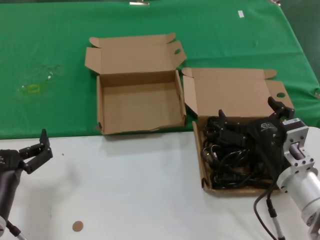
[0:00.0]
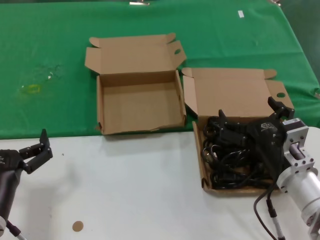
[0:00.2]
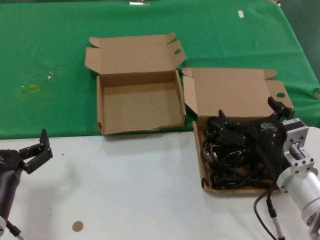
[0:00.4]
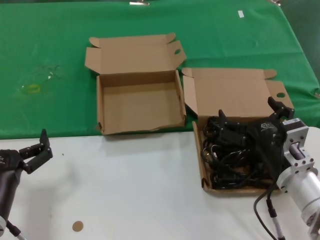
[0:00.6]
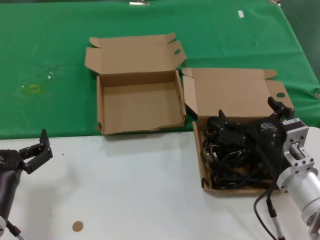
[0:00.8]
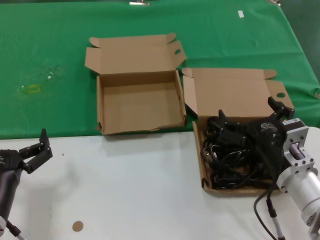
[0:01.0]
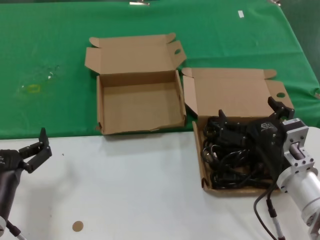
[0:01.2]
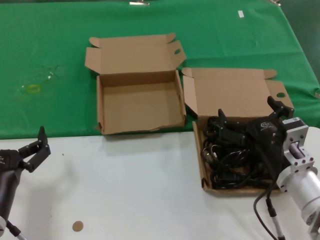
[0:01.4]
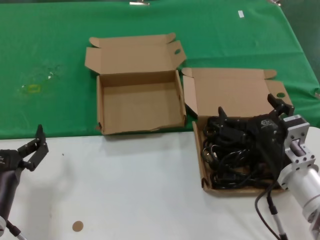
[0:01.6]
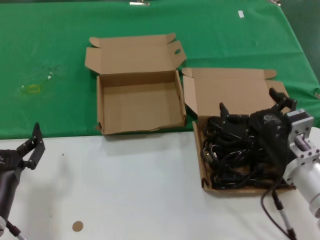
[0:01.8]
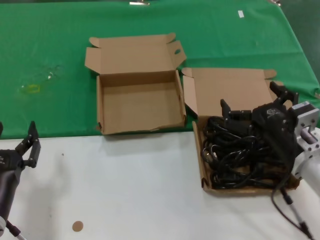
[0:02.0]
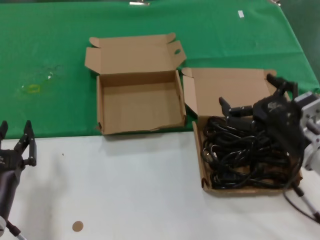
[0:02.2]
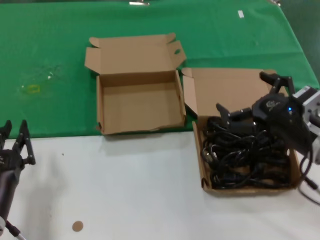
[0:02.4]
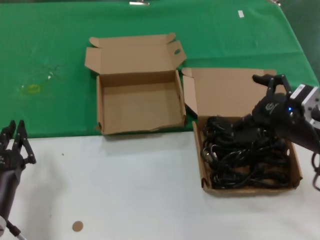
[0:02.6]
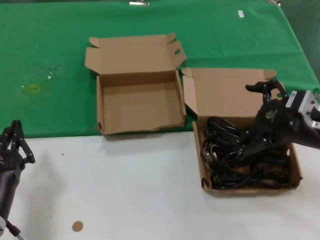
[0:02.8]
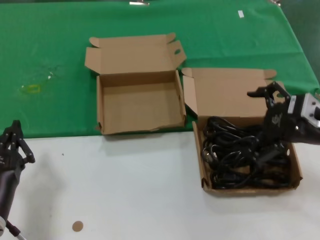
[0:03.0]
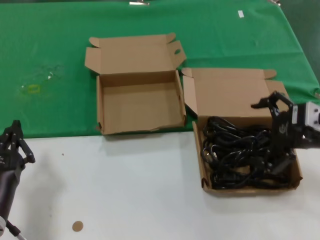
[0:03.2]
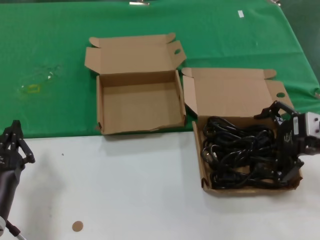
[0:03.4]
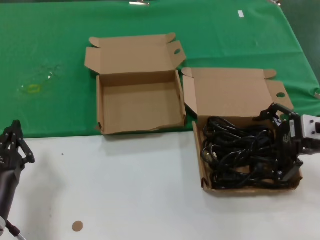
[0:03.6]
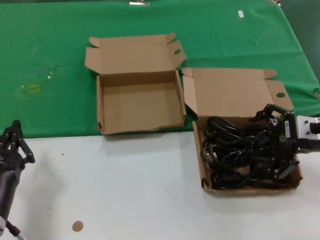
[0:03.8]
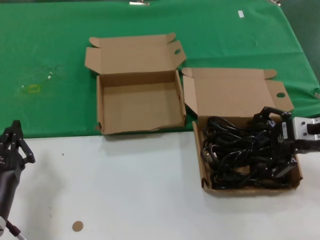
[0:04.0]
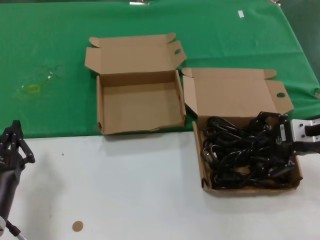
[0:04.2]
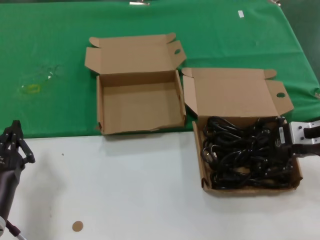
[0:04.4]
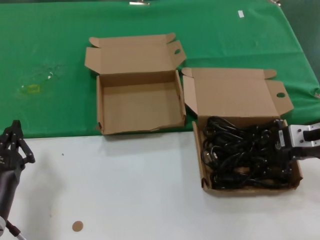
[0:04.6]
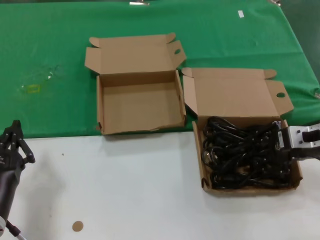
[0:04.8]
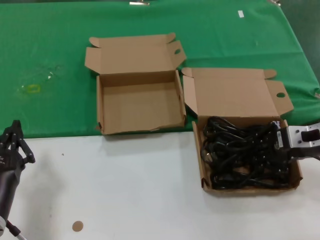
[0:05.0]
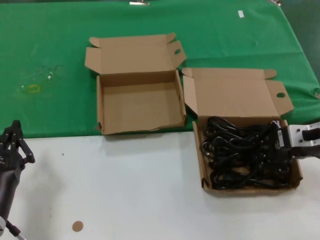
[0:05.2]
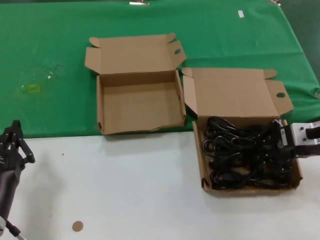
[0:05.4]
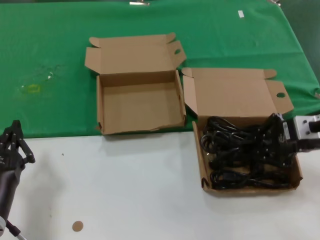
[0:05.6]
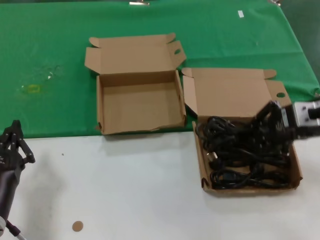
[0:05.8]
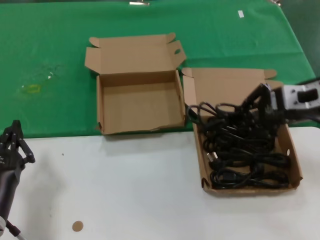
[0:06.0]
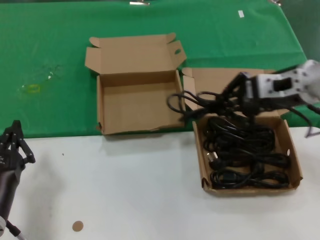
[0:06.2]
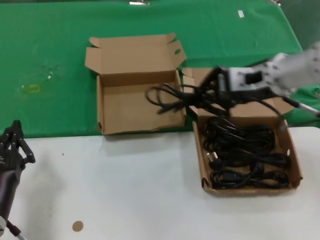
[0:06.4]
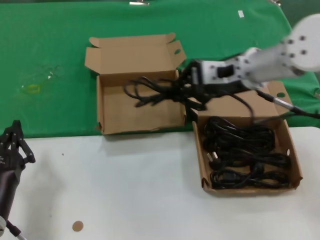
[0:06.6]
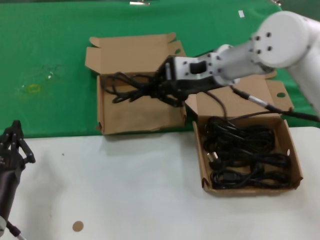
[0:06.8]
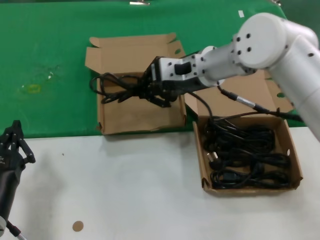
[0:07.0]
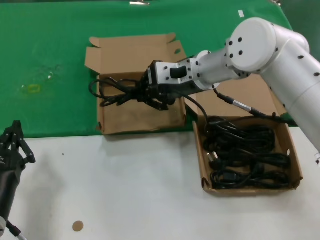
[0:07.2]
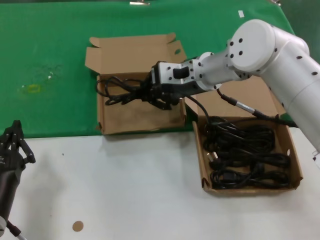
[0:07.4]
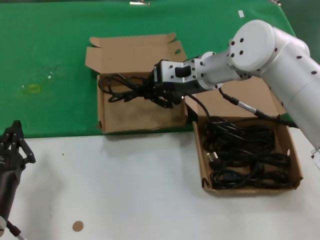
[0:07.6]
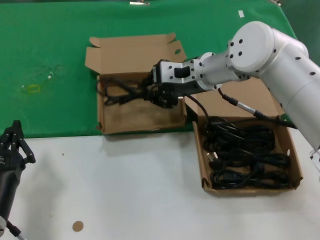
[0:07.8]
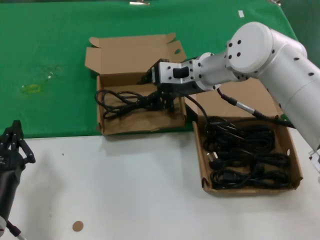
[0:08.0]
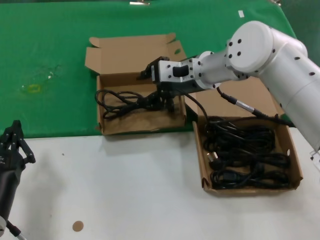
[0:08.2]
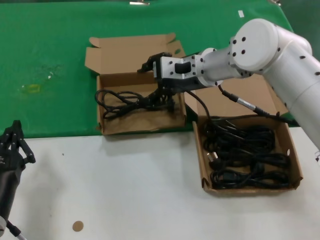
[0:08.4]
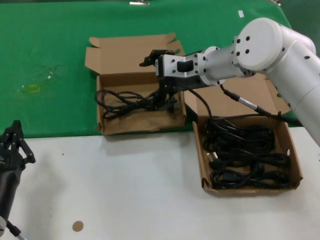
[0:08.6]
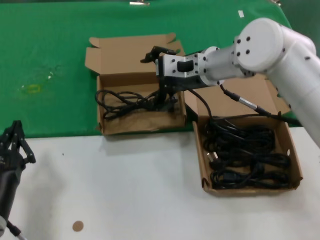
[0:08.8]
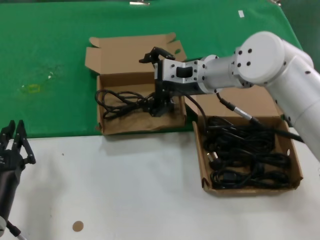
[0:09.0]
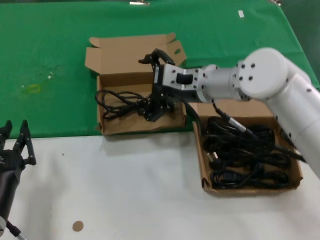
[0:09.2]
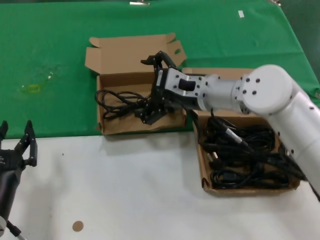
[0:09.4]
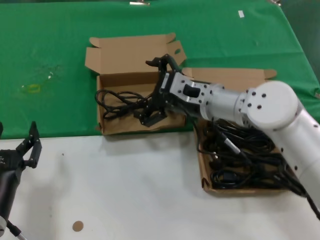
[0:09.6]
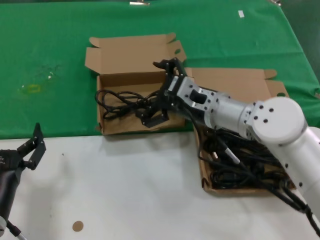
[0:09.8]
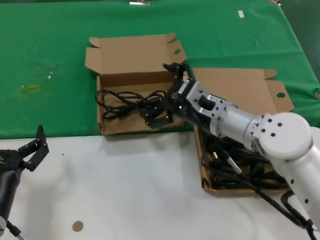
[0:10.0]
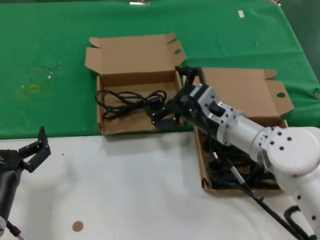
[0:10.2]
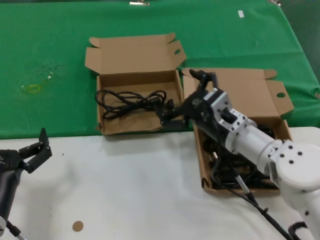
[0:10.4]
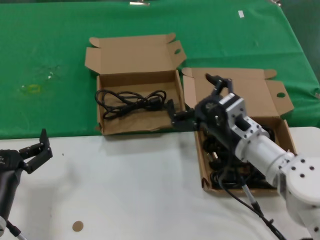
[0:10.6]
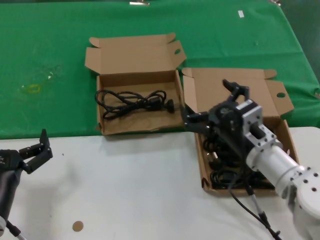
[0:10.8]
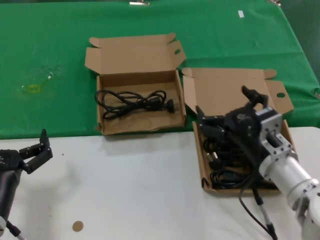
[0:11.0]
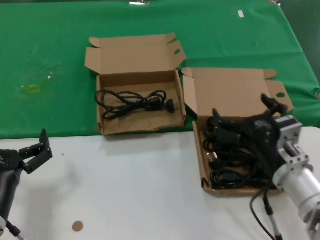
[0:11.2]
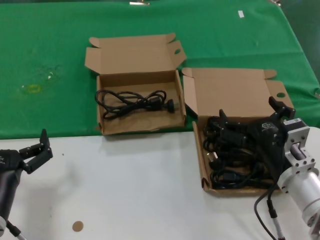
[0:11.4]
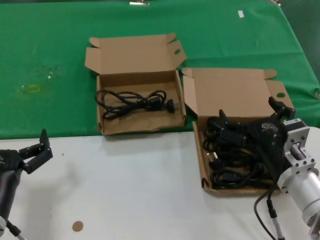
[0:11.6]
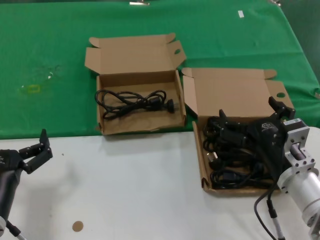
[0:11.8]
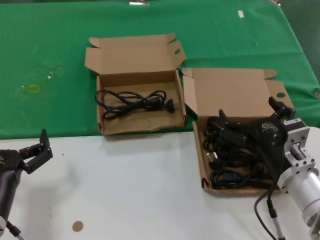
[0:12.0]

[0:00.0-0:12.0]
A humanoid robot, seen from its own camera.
Task of the whole recording: take the parts from the box containing them and put them into an empty box.
Step, 0.0 to 5.2 s: Grasp the data cable.
Step, 5.4 to 8.2 s: Place the data cable in the another box.
0.0 to 1.6 s: Both hands stay put.
1.6 to 3.0 s: The right hand heads upward and to the right, covering about 15 cm.
4.4 to 6.0 s: The right hand shifts some 5 cm upward.
6.0 to 7.6 s: The right hand is displaced to the left and forward by roughly 20 cm.
7.6 to 9.0 s: The hands stay close to where they were, moving slightly.
9.0 to 10.4 s: The right hand goes about 15 cm downward and backward.
10.4 to 12.0 s: The right hand shifts roughly 10 cm backward and to the right.

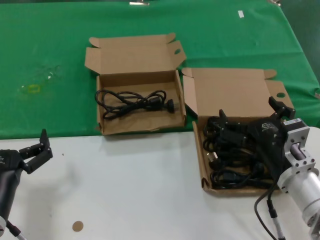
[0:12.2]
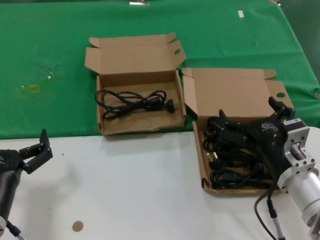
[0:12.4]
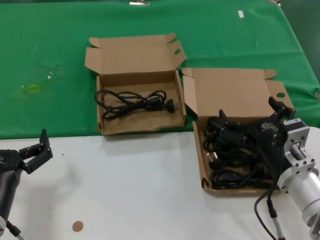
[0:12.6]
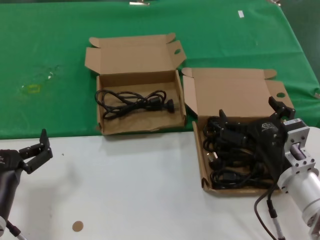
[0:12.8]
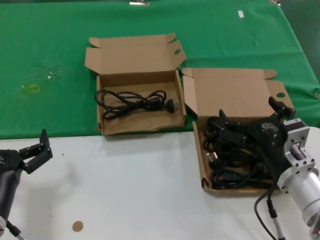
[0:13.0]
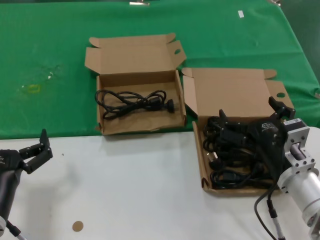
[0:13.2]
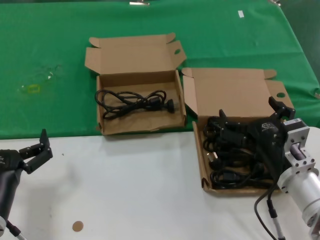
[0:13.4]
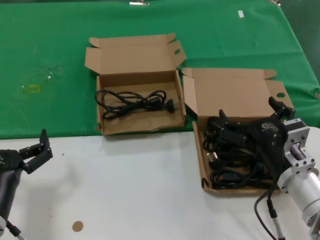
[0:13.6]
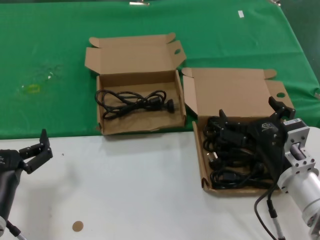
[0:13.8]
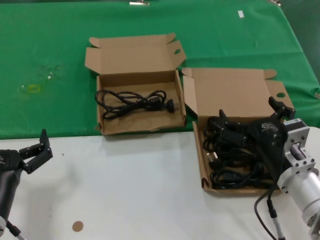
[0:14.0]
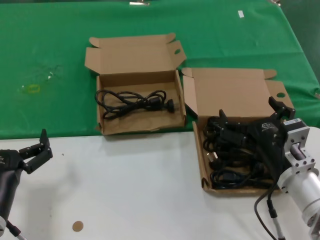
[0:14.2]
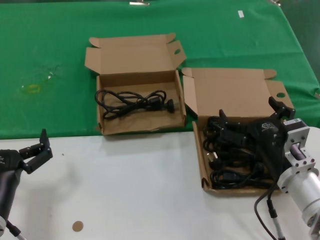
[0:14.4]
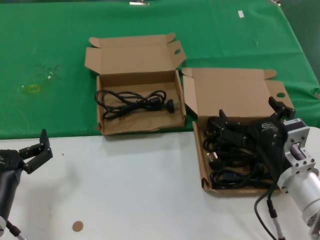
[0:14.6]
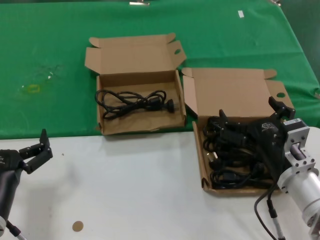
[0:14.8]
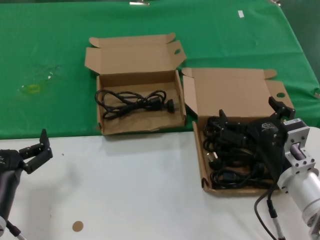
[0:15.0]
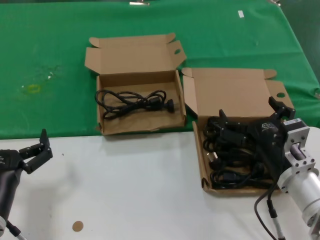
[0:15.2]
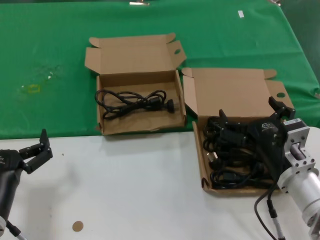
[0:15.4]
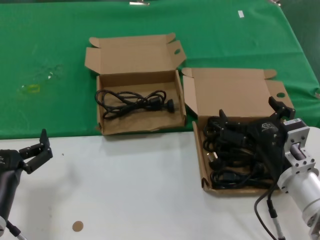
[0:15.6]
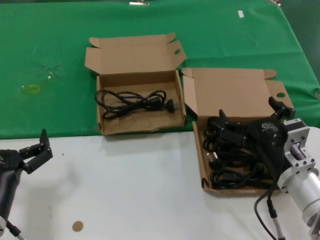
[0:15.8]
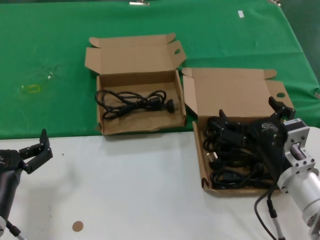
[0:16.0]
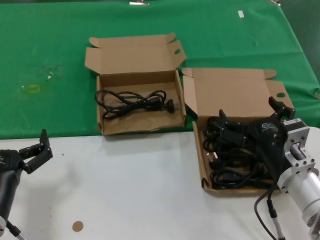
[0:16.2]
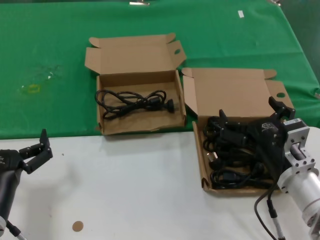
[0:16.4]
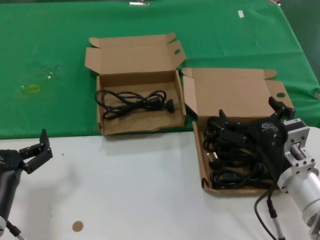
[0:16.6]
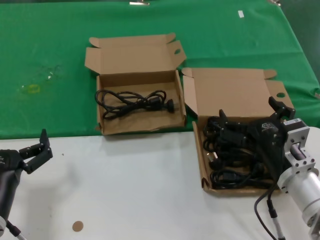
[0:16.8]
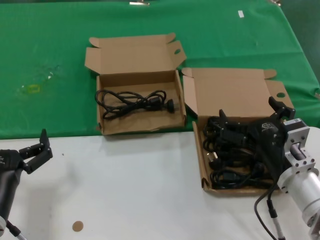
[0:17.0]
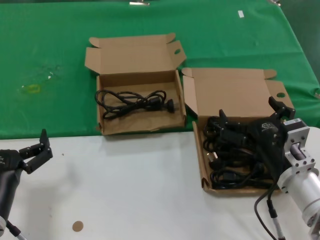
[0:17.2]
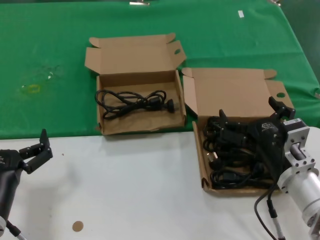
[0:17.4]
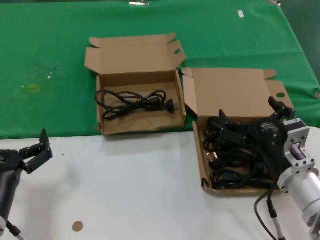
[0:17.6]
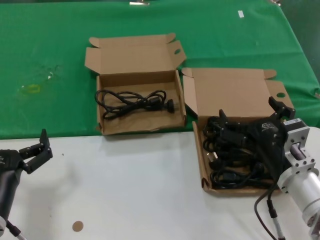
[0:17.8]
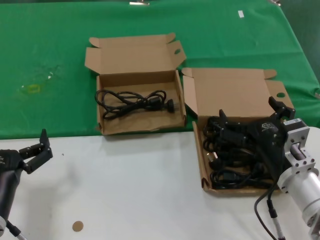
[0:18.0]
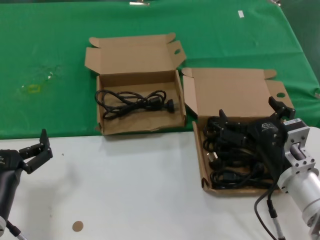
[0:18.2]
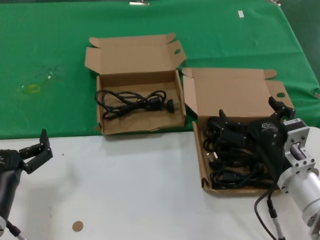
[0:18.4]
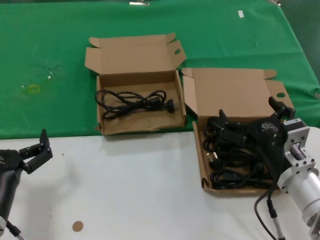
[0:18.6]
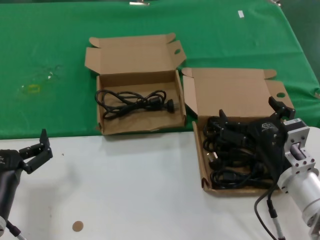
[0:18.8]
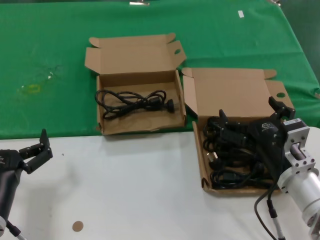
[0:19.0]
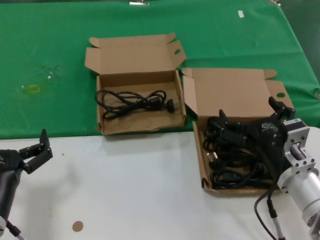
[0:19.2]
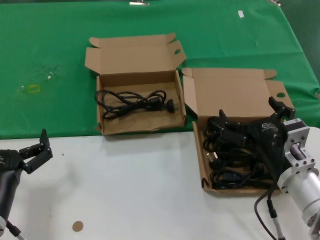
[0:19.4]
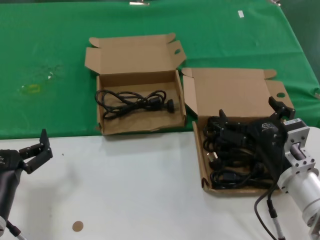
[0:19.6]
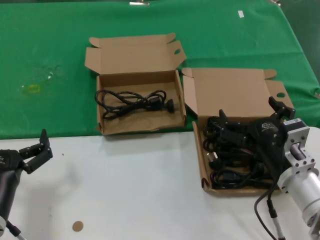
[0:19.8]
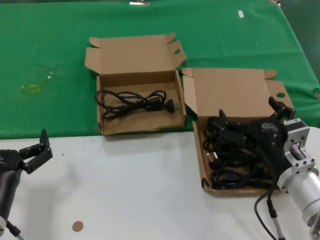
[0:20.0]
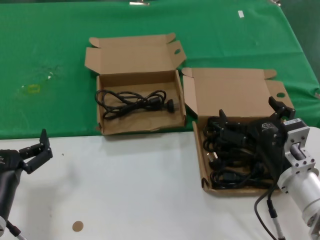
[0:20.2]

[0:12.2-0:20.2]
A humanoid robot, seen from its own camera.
Task of the whole recording: take the parts from the box containing them and put them into an empty box.
12.2 to 20.2 s: The two hands keep their place.

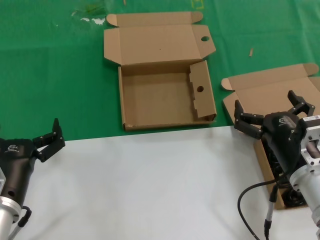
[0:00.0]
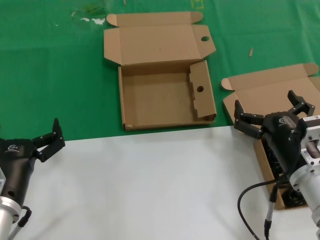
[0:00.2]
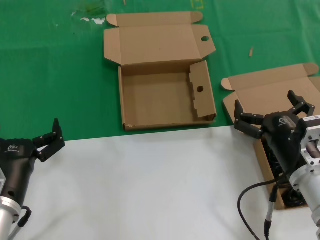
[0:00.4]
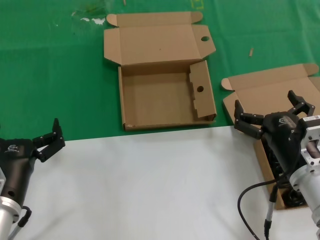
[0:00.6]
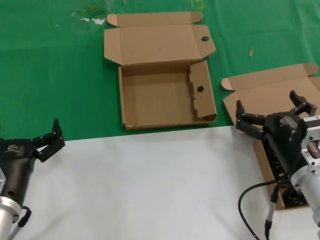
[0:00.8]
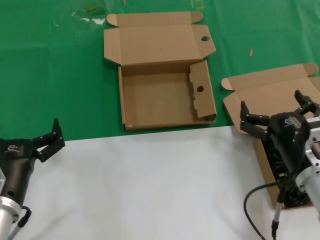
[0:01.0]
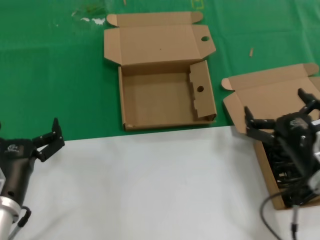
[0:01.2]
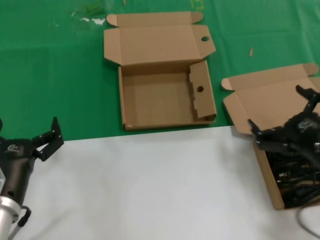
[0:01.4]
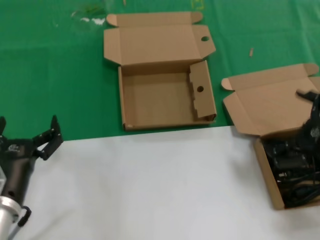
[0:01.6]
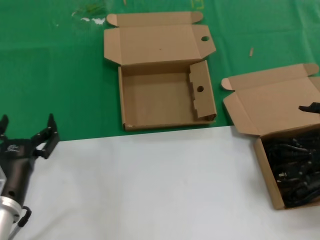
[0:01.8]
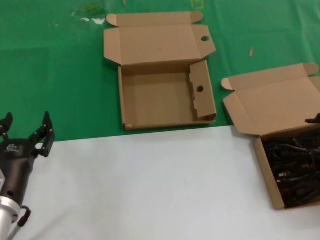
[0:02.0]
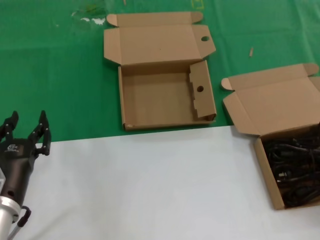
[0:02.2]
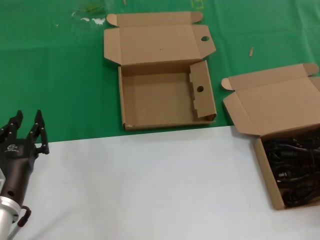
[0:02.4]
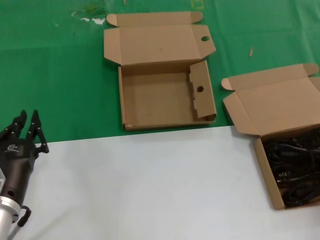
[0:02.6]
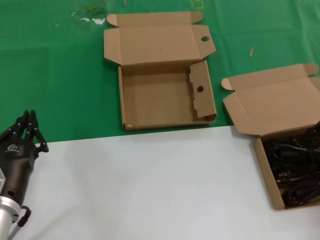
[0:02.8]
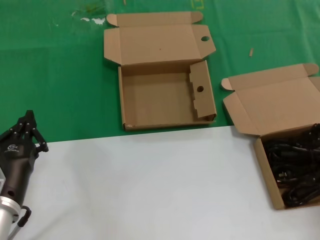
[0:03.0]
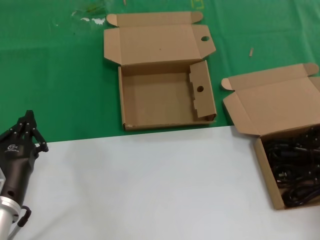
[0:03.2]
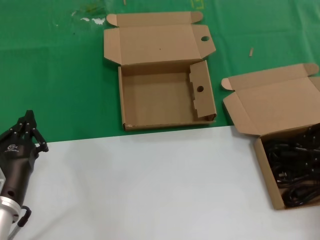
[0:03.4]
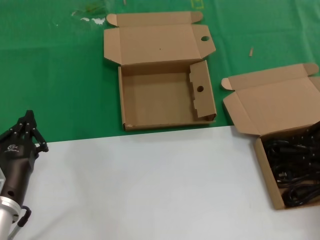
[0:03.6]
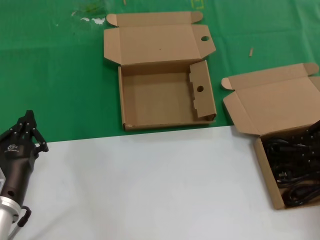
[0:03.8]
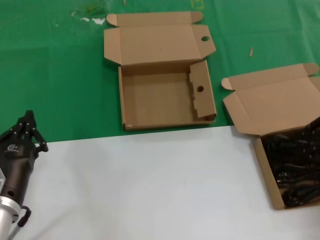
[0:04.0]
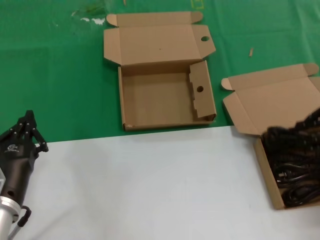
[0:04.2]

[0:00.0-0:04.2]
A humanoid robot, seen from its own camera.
Task of the whole recording: take the parts from the box containing them and put them into an empty box.
Step, 0.0 to 3.0 s: Grasp the data cable.
0.0 to 1.4 s: The right hand shifts about 5 cm to the right.
1.4 to 2.8 s: The right hand travels to the right, upward and forward by about 15 cm.
2.8 to 4.2 s: The right hand moves about 5 cm.
